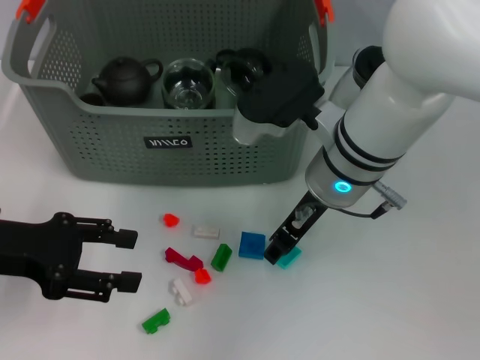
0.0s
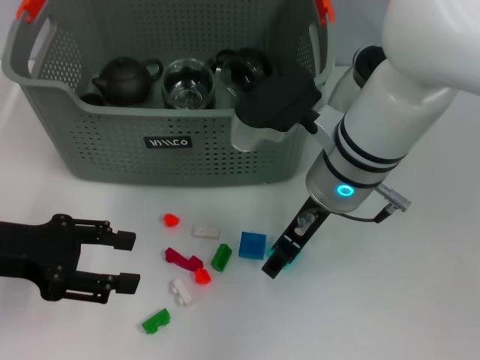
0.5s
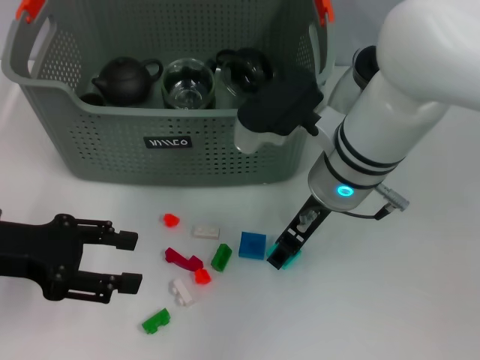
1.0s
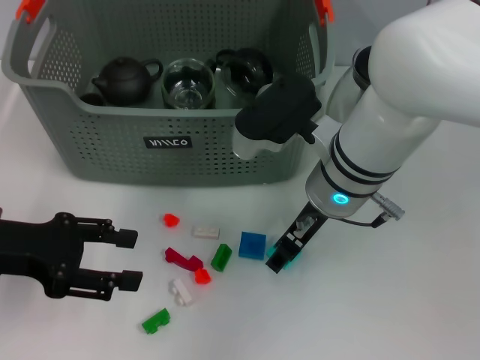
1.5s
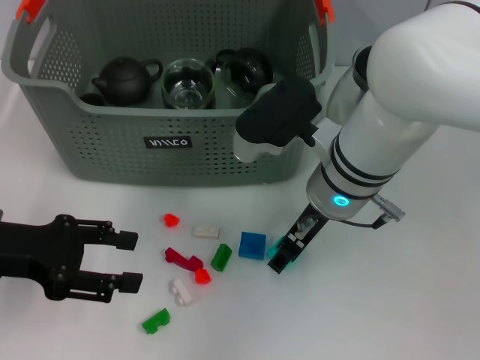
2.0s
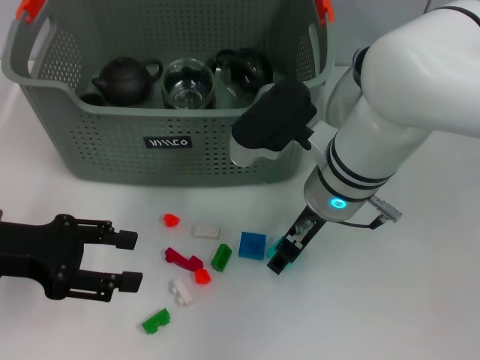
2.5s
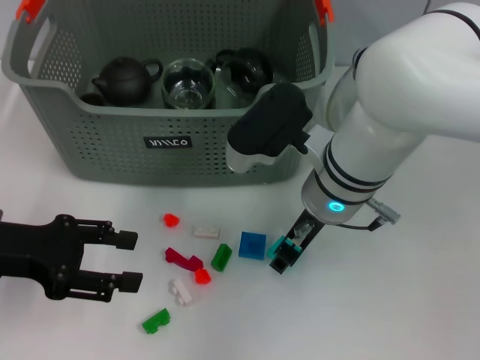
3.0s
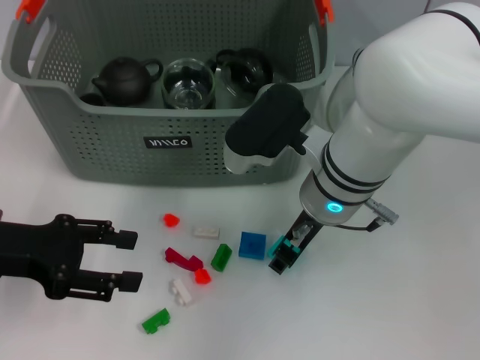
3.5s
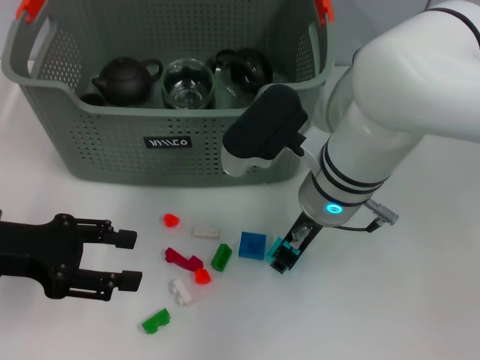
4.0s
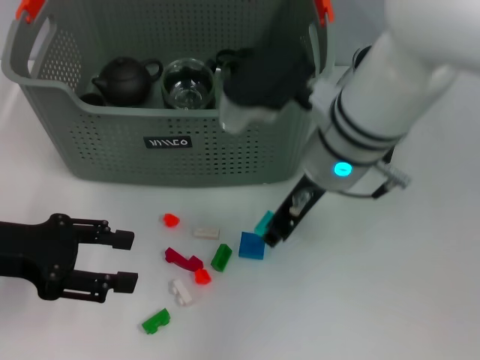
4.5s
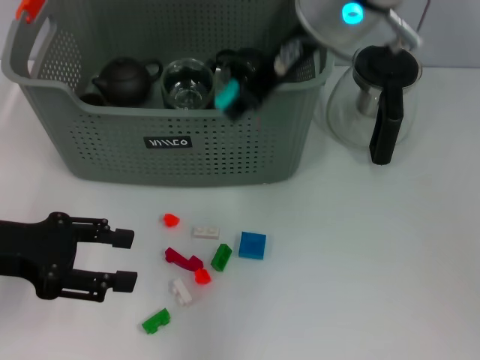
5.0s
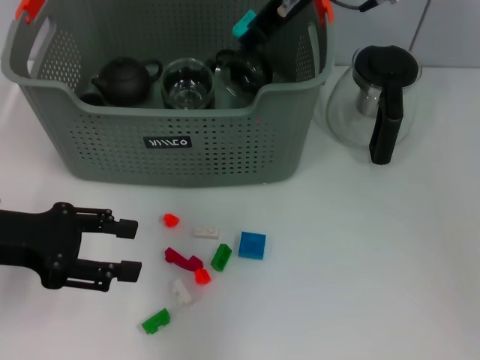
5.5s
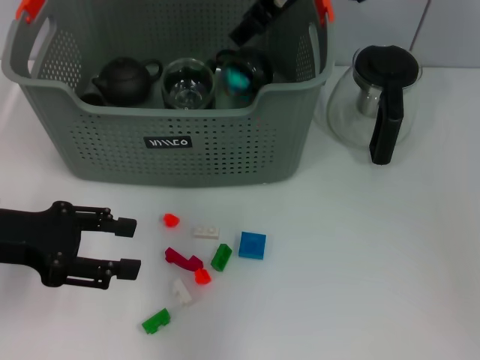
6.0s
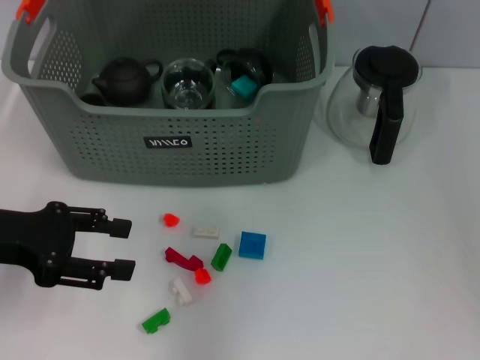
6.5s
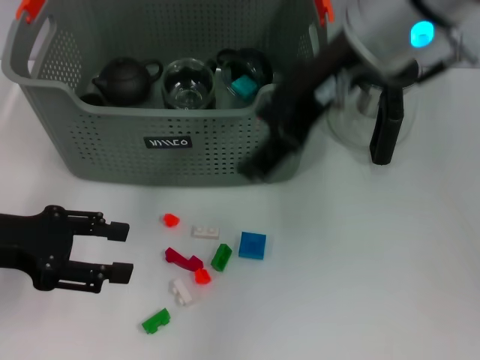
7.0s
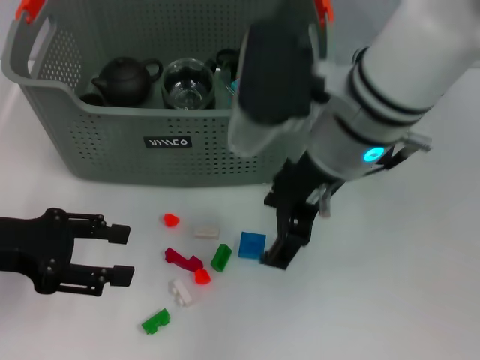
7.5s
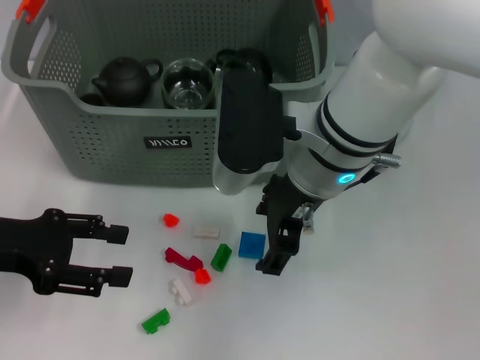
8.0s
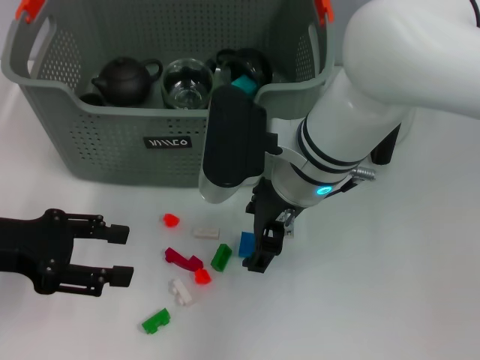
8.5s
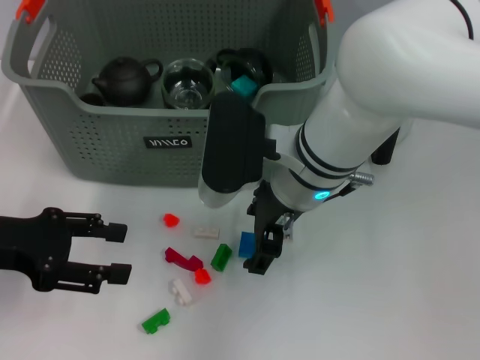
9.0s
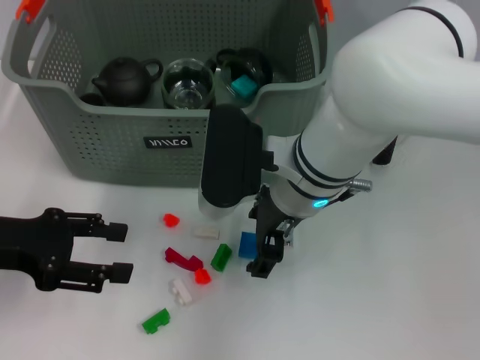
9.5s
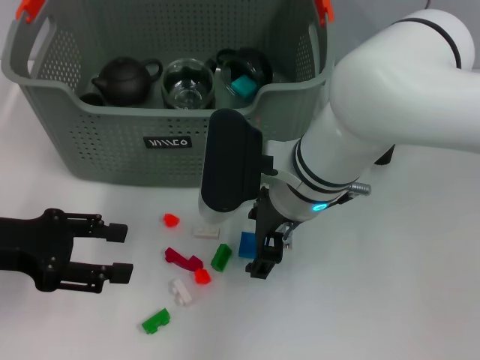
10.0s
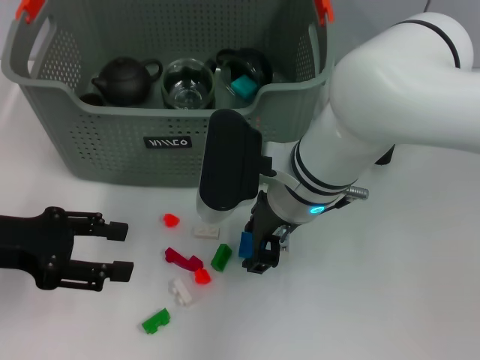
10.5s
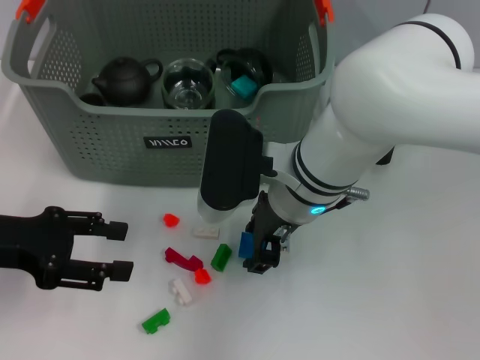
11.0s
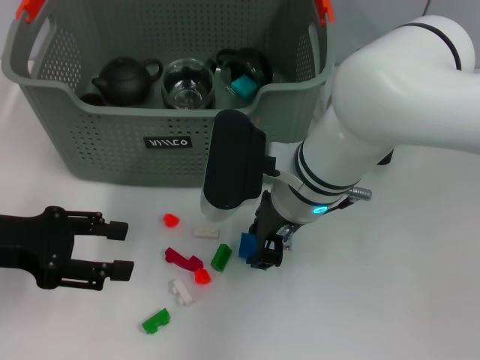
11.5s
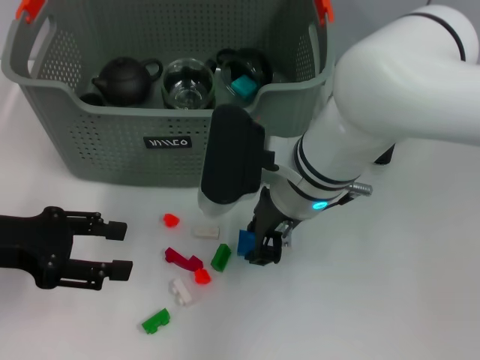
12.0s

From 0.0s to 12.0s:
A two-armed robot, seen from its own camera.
Task of the whole recording: pick up the teacup on the table and place it into the storage bin, pick up the block on the table and place it into the storage bin.
Step, from 0.0s to 3.5s: Grasp the light blue block with right gripper.
Step, from 4.0s to 5.5s: Place the light blue block in the storage box with right gripper.
Step, from 6.5s to 11.5s: Grasp the dark blue block with right gripper.
From 0.0s to 2.0s: The grippers make only small movements.
From 2.0s to 4.0s: The right gripper closes.
From 4.0s to 6.0s: The right gripper heads upward and forward, covering about 20 cm.
From 6.0s to 8.0s: The right gripper travels backward and downward by roughly 15 cm.
From 8.0s to 10.0s: The right gripper shifts by roughly 5 cm.
From 10.0s to 12.0s: The right gripper closes its fingers.

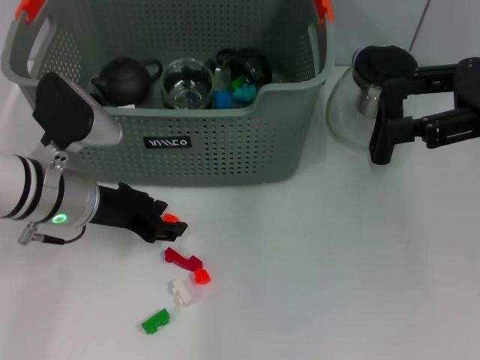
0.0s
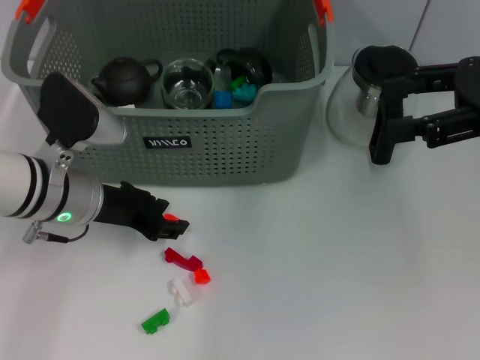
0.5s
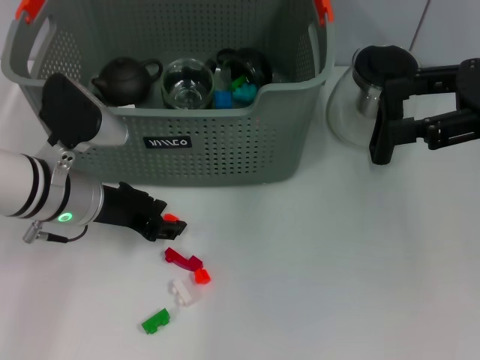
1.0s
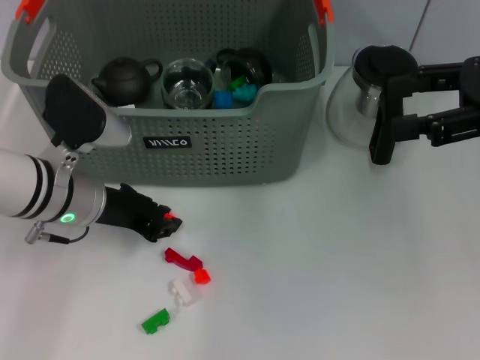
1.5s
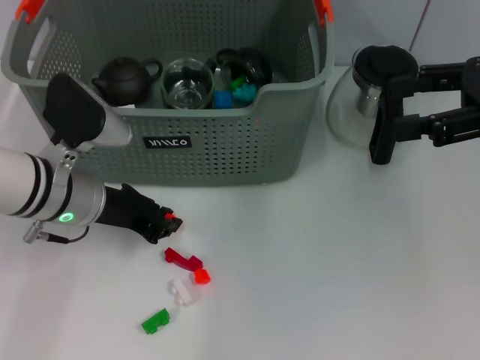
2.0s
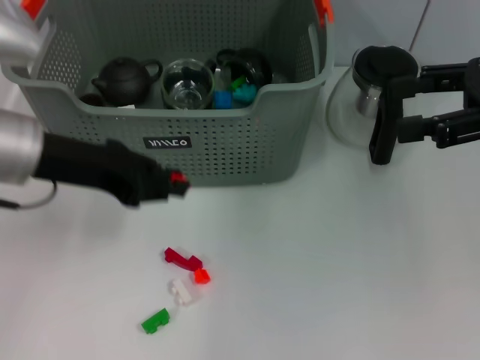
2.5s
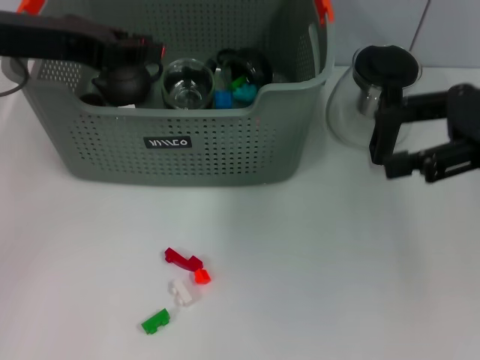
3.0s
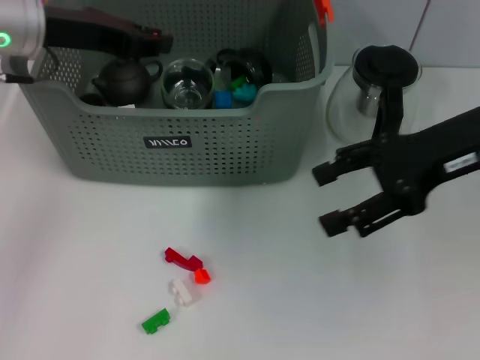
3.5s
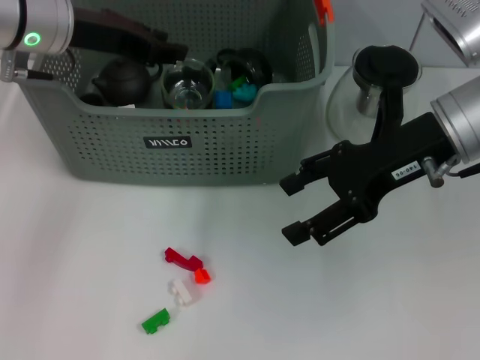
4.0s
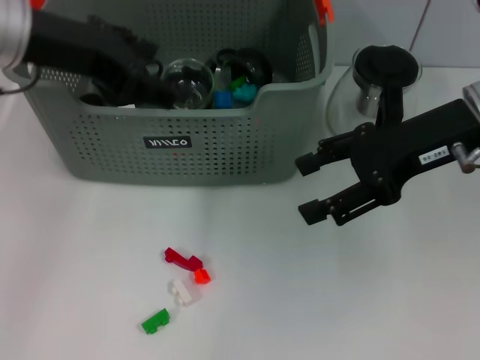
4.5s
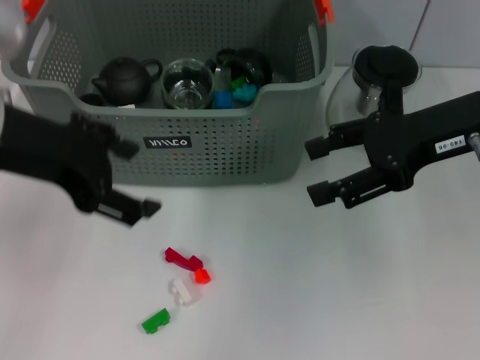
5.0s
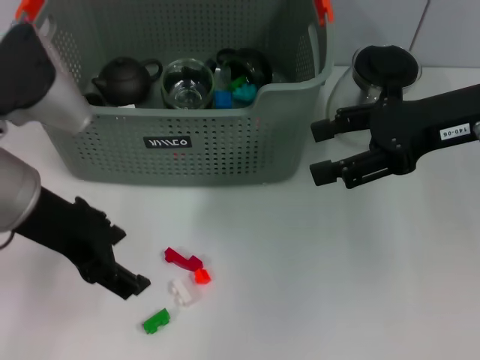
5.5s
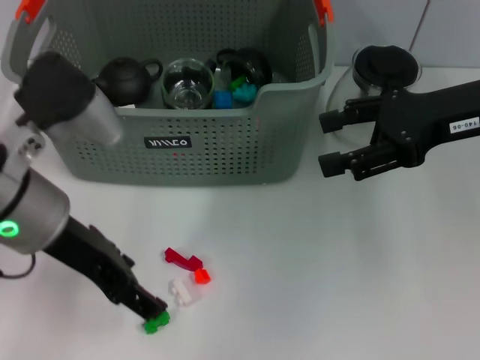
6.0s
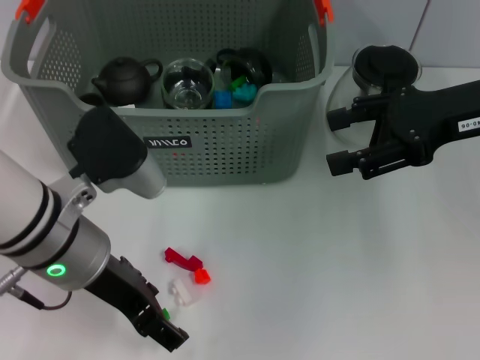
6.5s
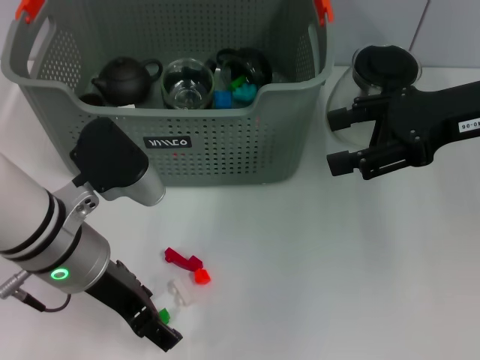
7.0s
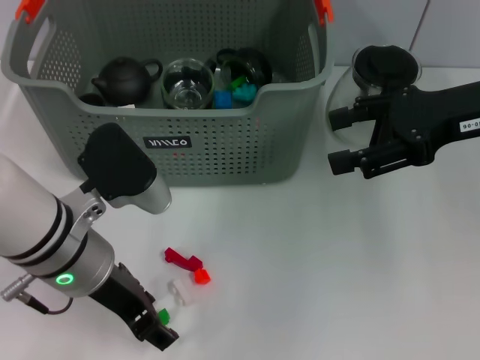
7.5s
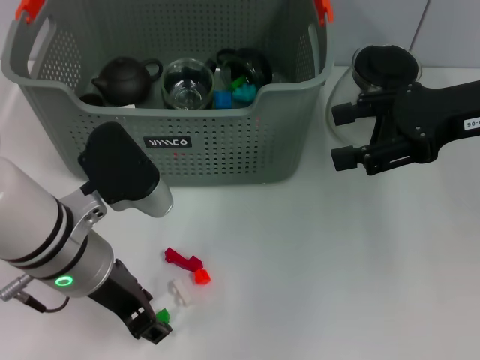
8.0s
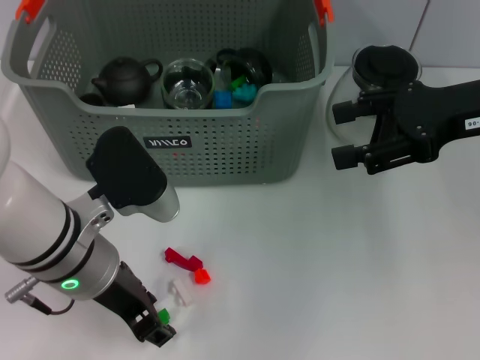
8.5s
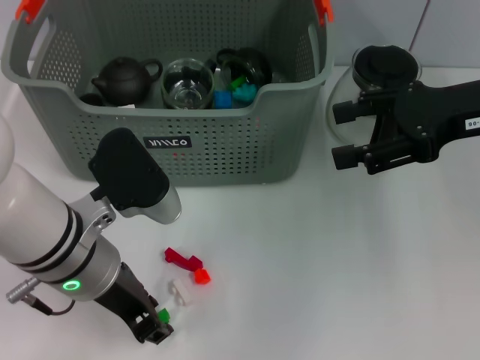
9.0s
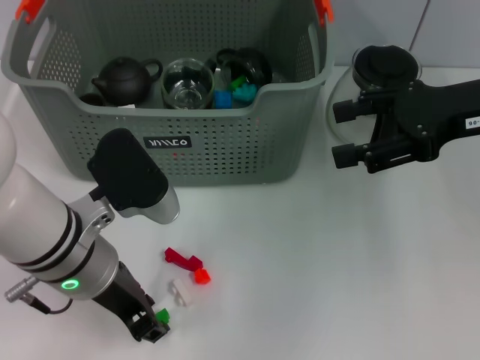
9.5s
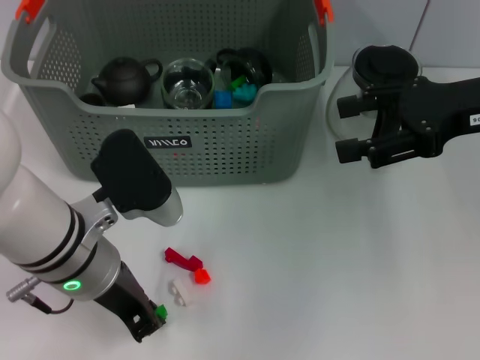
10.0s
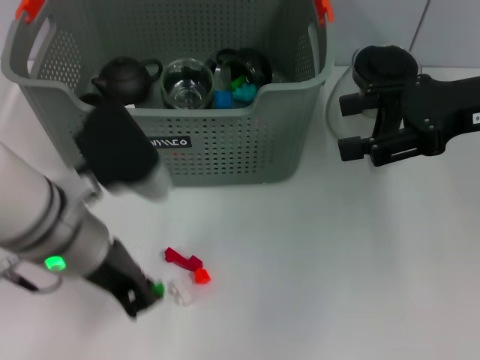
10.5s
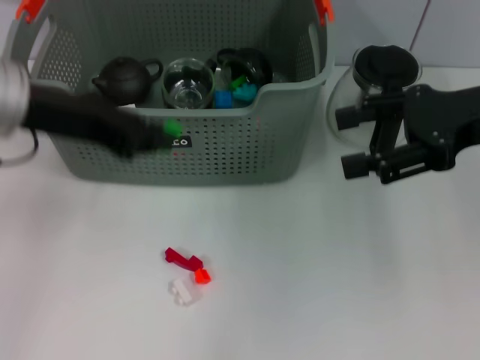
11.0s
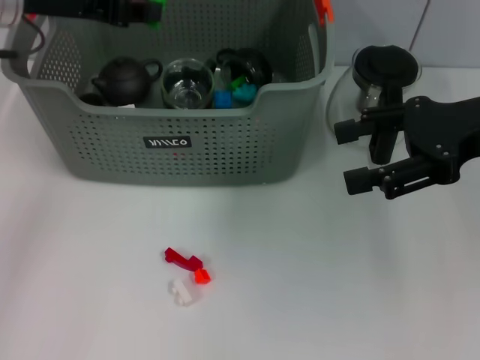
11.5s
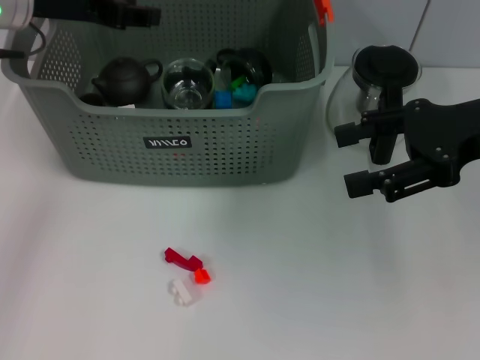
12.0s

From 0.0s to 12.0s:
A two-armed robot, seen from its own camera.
Task of the whole recording: pick up the teacup on the table and place it into the storage bin, pick up the block on the table and place it into the storage bin.
Step, from 2.0s to 4.0s: Place the orange block in the storage box with left gripper.
Step, from 4.5s to 10.0s: Grasp the green block with left gripper.
Step, from 10.5s to 11.5s: Place the green block in the storage box with left gripper.
From 0.0s to 2.0s: The left gripper closes.
From 2.0s to 4.0s: The right gripper goes some 10 cm to the left. Meanwhile the left gripper moves upward and forward, about 15 cm.
From 4.0s to 6.0s: The left gripper goes about 15 cm backward, and opens; the right gripper moves to the right, some 5 cm.
From 6.0s to 8.0s: The left gripper heads downward, covering approximately 5 cm.
From 8.0s to 10.0s: Both grippers stay about where they are.
From 10.0s to 12.0s: The left gripper moves forward, upward and to the left, roughly 20 cm.

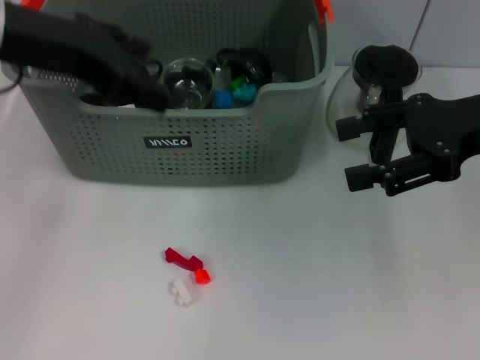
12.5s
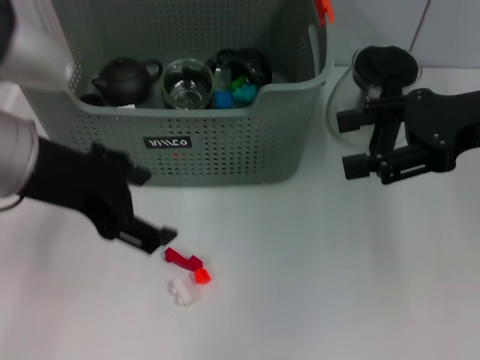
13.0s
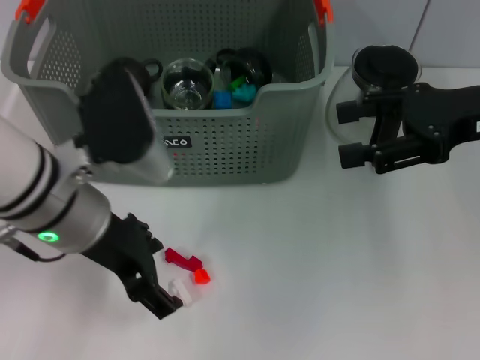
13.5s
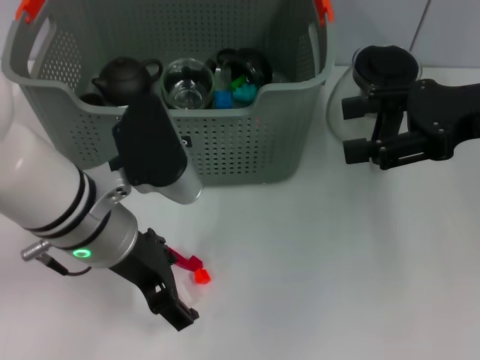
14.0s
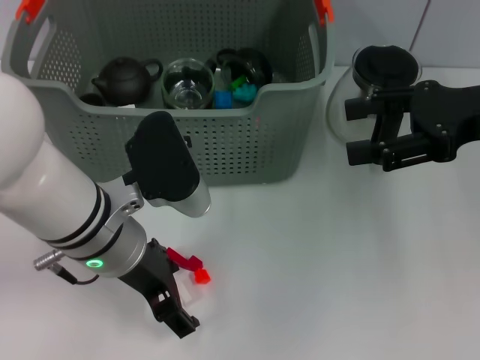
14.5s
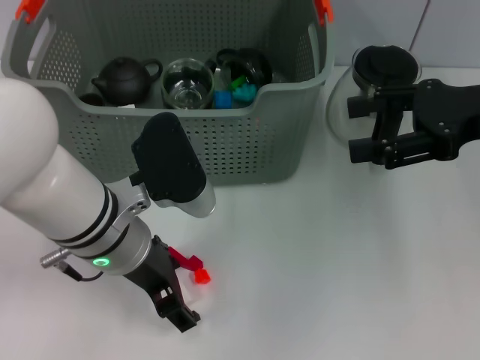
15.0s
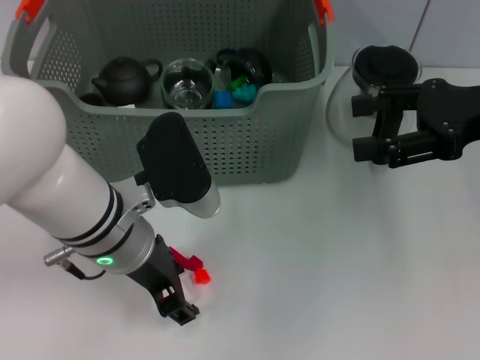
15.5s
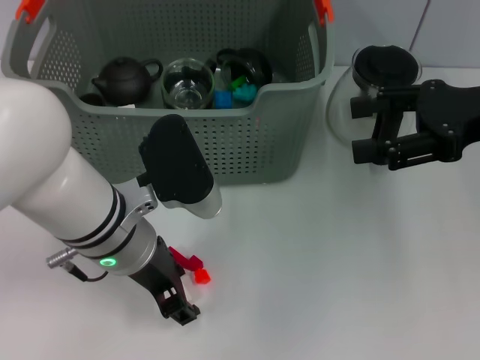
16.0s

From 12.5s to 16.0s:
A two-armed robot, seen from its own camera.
Task of the whole recording: pick up the teacup on the table and place it into the storage bin, pick up the block on the table and place it into the storage bin.
From 12.5s to 14.5s: The left gripper heads downward and to the right, covering roughly 20 cm.
From 14.5s to 16.0s: Neither gripper changes place.
